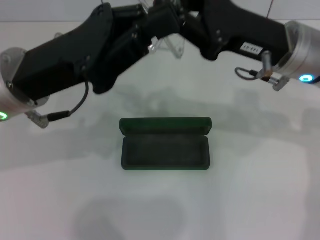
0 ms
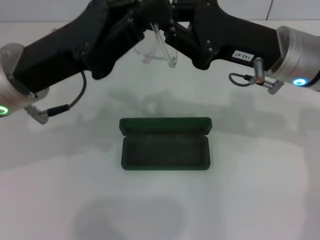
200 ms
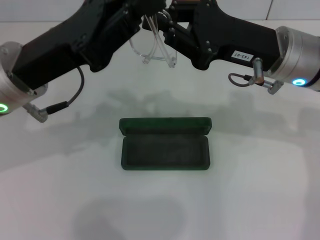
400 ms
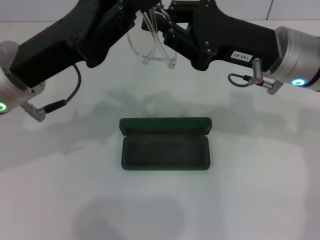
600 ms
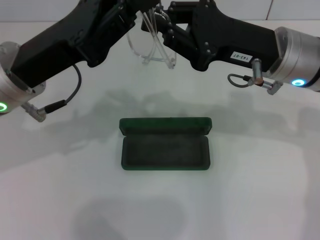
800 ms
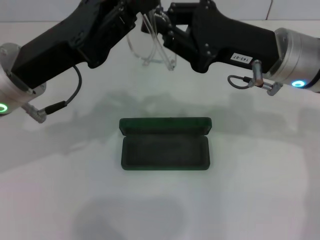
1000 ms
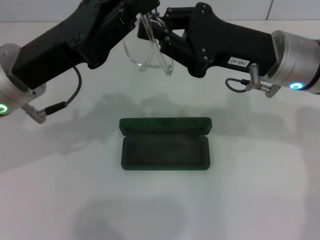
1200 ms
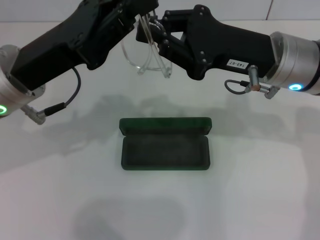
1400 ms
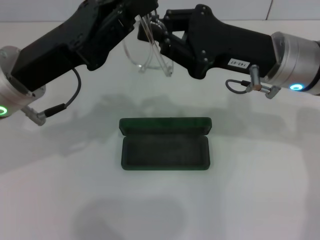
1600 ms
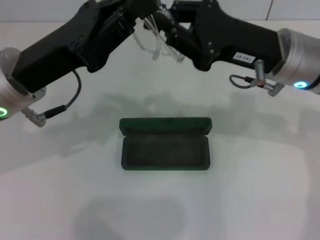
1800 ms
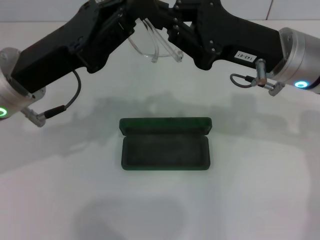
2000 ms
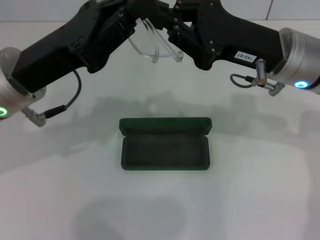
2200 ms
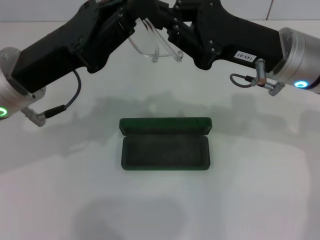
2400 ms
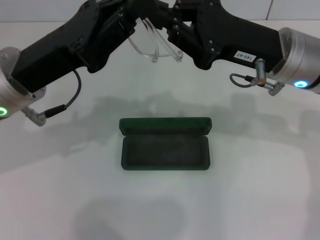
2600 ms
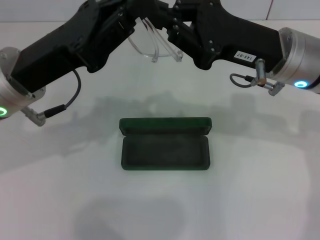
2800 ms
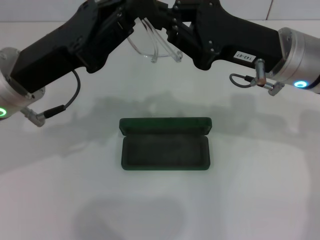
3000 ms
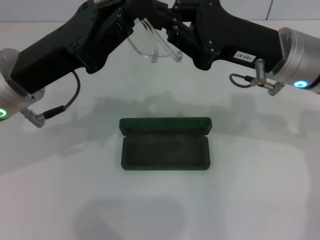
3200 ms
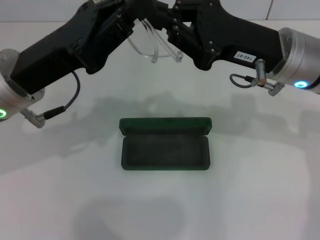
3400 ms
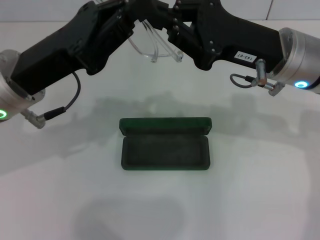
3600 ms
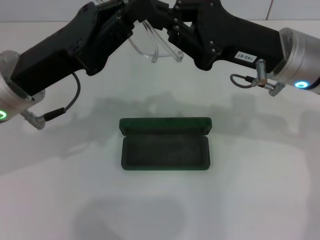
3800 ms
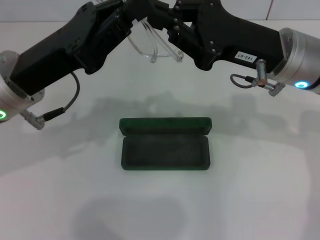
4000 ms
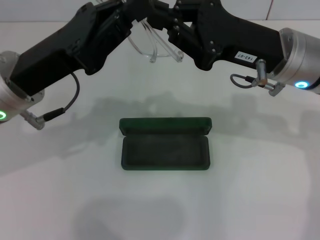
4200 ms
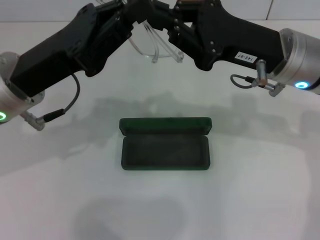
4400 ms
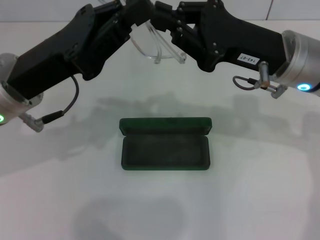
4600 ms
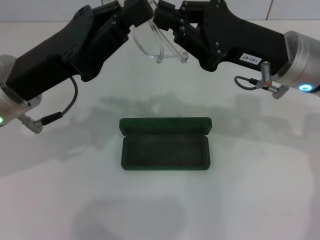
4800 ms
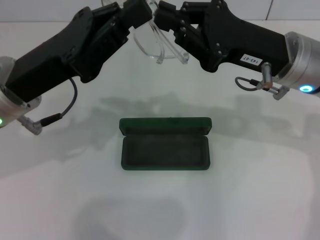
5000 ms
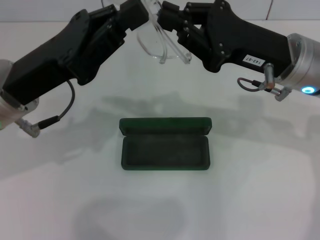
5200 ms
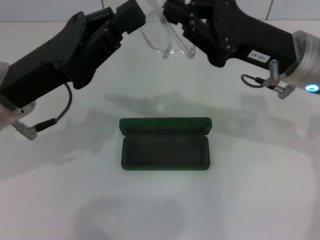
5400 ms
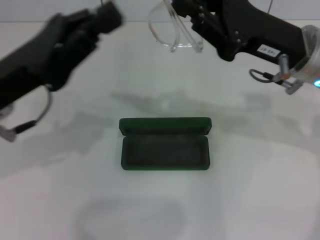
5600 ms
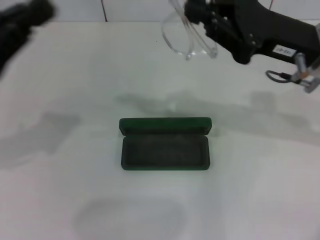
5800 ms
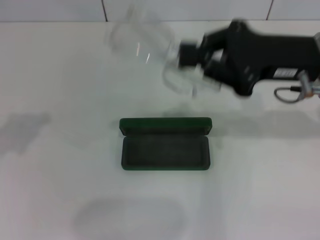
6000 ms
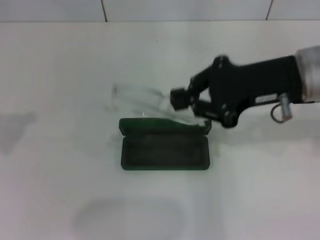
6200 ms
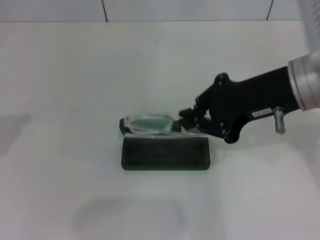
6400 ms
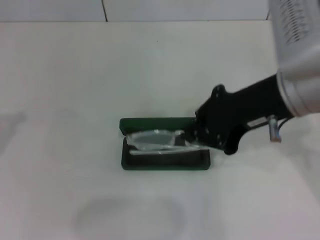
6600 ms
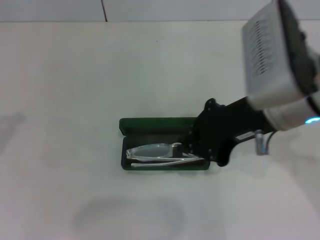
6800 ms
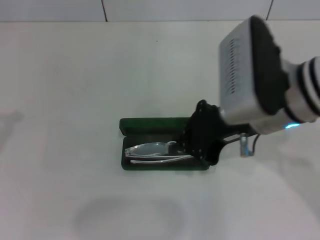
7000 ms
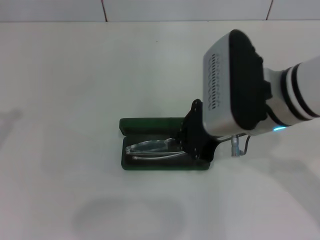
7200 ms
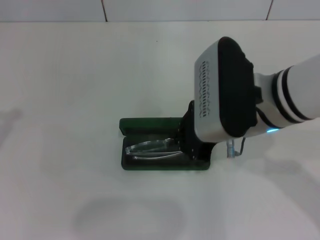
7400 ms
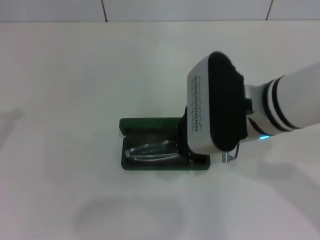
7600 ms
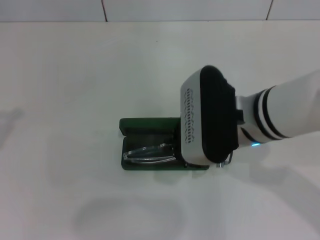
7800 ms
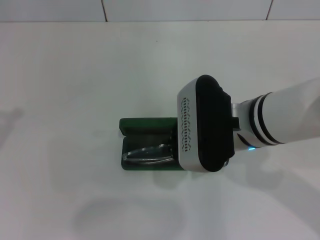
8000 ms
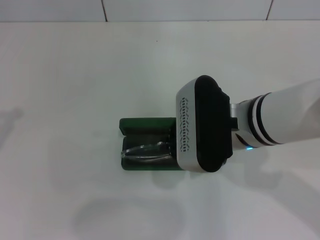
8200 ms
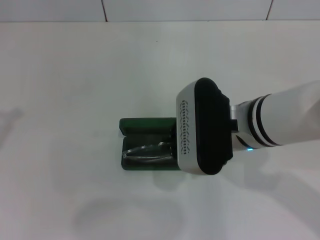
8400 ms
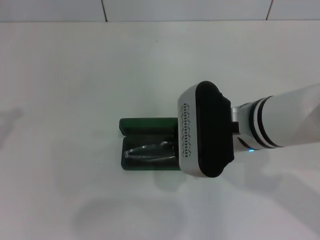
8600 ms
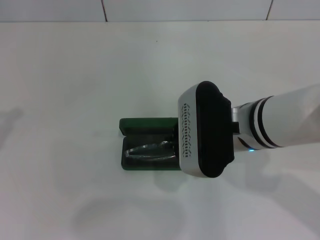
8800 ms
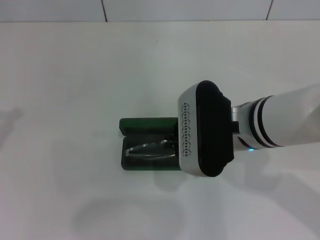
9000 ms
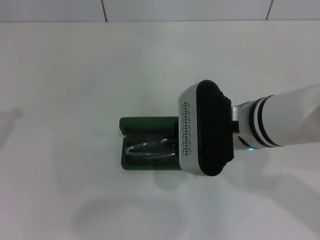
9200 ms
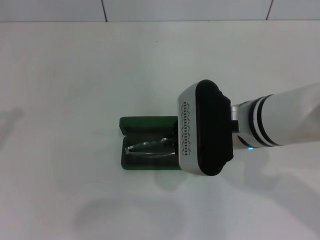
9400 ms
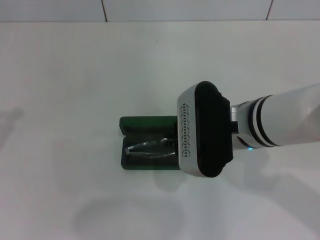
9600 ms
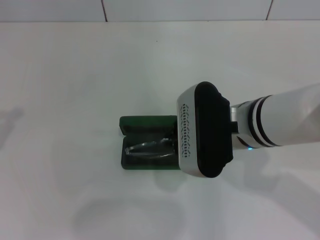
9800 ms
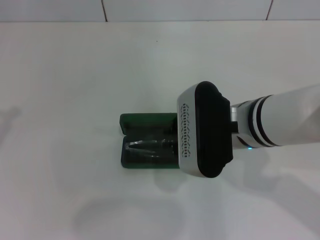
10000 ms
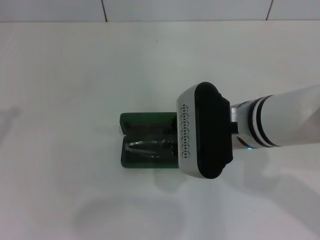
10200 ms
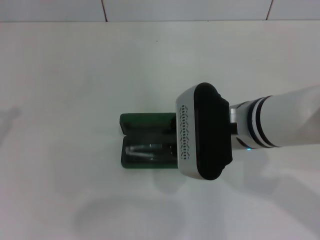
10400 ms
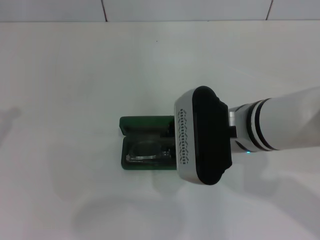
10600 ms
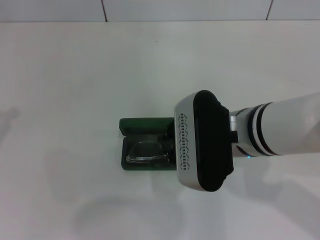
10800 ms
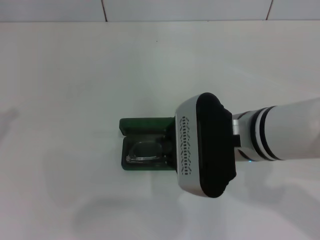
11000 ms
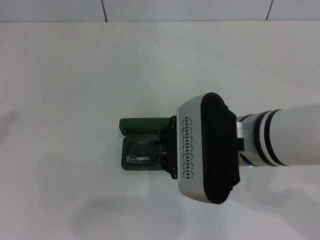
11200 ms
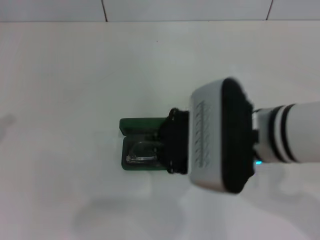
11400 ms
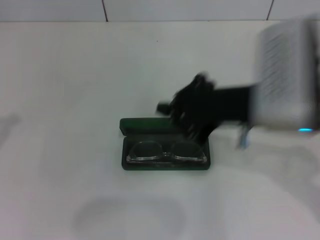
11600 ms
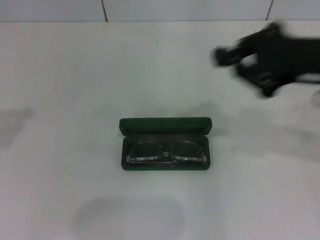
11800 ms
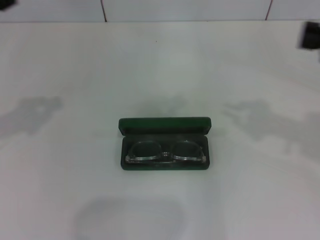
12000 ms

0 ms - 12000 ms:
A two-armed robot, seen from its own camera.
Step, 1800 ms - 11000 ms: Put the glasses into the case with your right hand.
0 ms - 1600 ms: The grippers stay close to where they were, moving slightly.
1600 ms - 4400 ms: Neither gripper changes place.
4400 ms - 6000 ms: The left gripper heads to the left, covering about 15 cm.
6000 ms - 7600 ms: The right gripper goes some 10 cm to the left.
7600 ms - 9000 ms: The grippers move only a little.
9000 ms - 10400 ms: Both grippers stay put.
10400 ms - 12000 ms: The left gripper travels forward by about 5 cm. Meanwhile the right gripper travels to the right by roughly 25 cm.

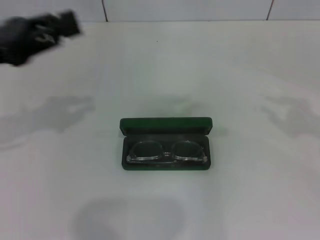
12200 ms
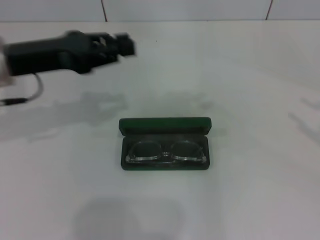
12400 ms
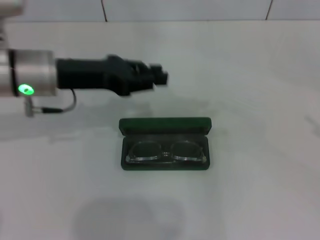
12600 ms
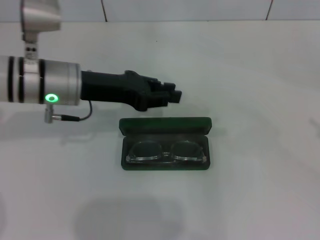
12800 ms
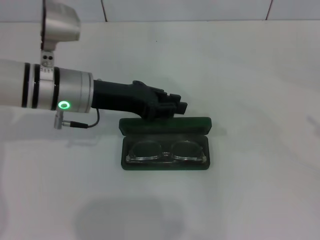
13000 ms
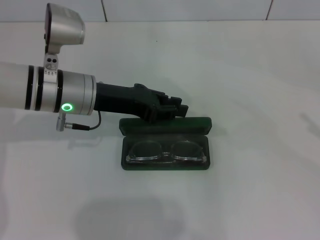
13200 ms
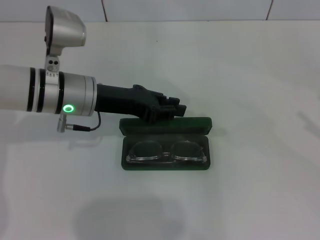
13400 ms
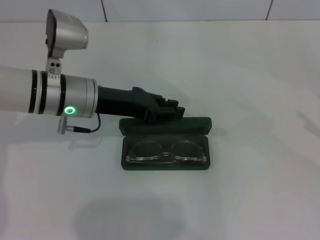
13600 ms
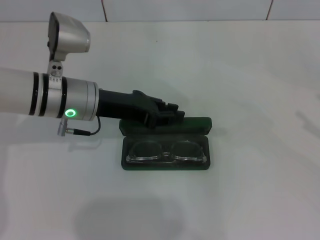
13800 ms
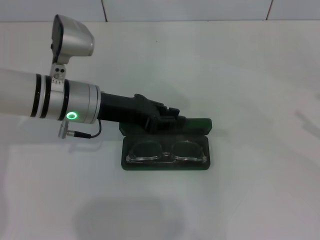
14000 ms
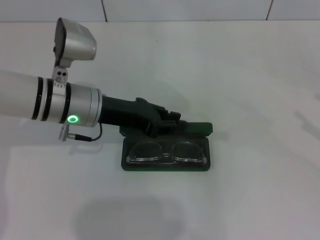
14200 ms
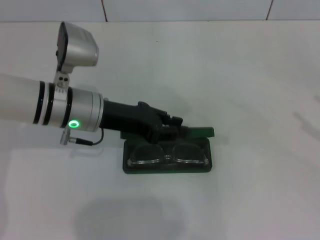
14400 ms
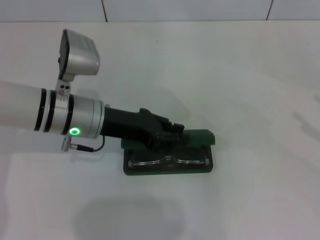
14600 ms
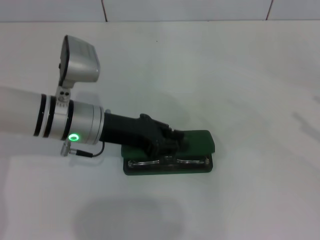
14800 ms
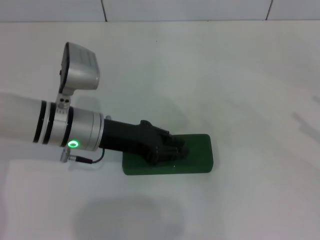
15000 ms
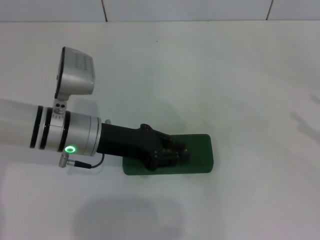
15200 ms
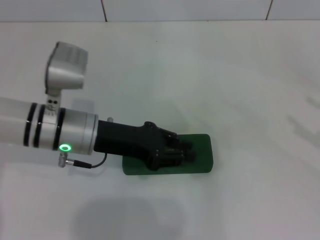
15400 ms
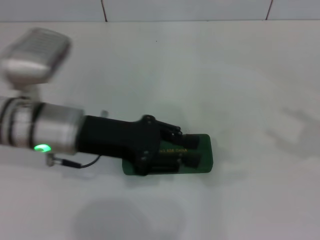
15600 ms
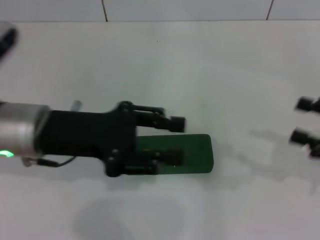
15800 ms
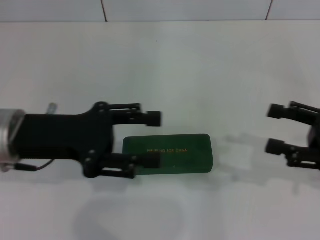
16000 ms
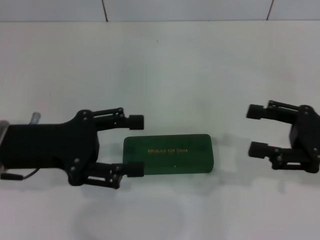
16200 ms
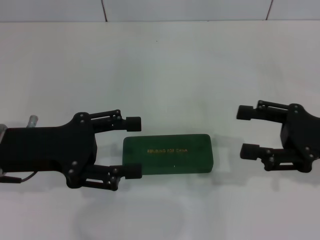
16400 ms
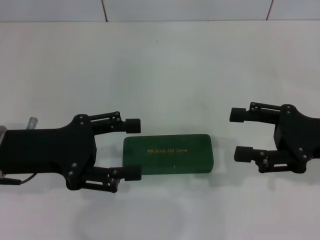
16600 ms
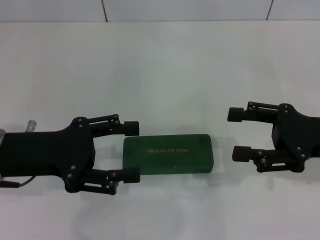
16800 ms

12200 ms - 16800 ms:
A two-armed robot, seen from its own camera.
Step, 12200 ms - 15000 ms: Close the glasses case with your left hand.
12200 ms - 13800 ms: The left gripper goes approximately 15 cm to the right and downward. Meanwhile the right gripper moves downward, some 5 cm, and opens up.
13800 ms - 15200 ms: The grippers make only small movements.
15200 ms - 16800 ms: The right gripper is displaced to the left by approximately 15 cm. The left gripper travels to the left, backward and upward by some 10 cm, and opens its fingers.

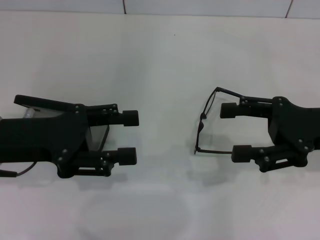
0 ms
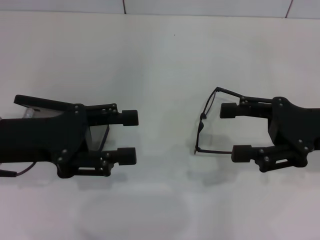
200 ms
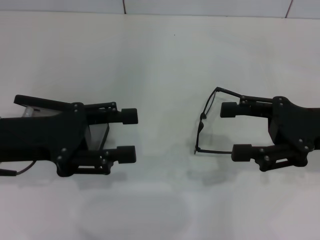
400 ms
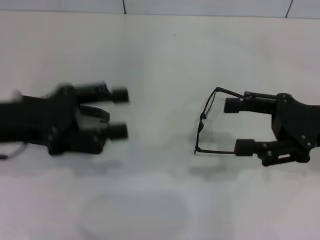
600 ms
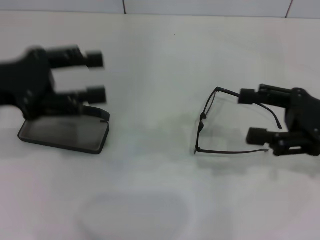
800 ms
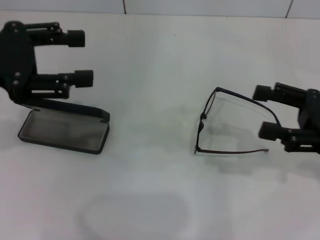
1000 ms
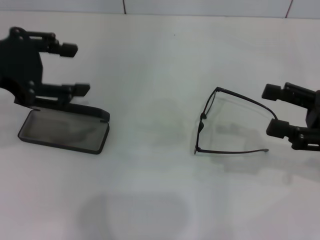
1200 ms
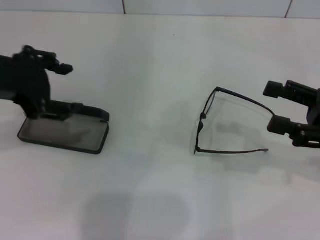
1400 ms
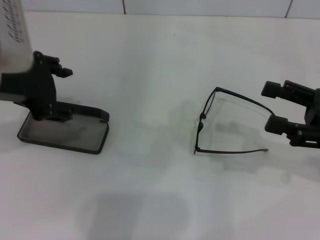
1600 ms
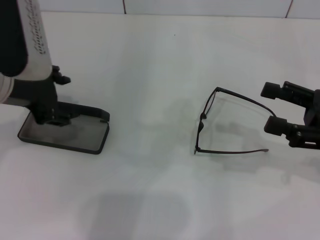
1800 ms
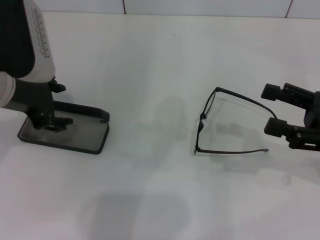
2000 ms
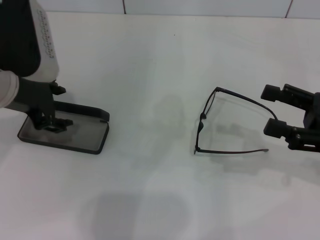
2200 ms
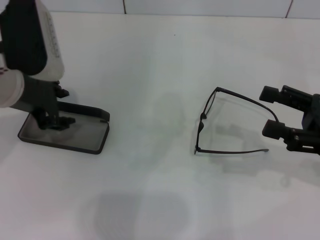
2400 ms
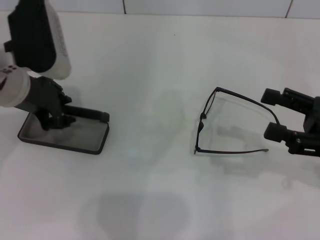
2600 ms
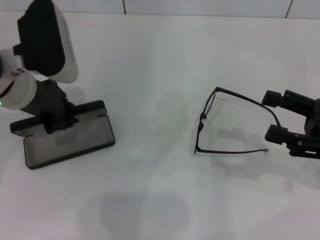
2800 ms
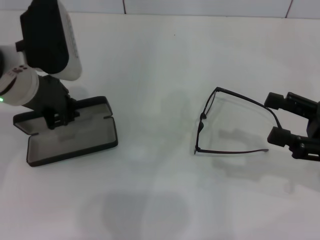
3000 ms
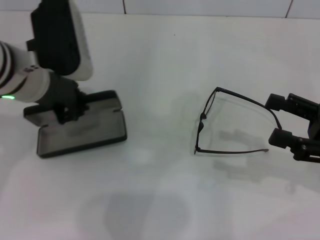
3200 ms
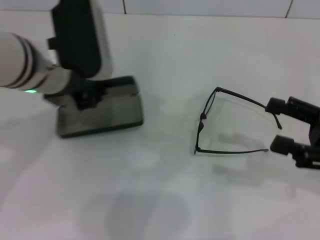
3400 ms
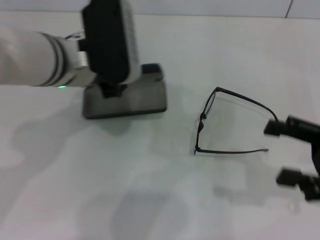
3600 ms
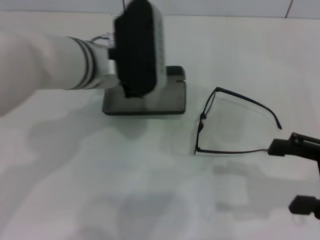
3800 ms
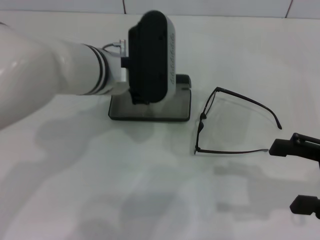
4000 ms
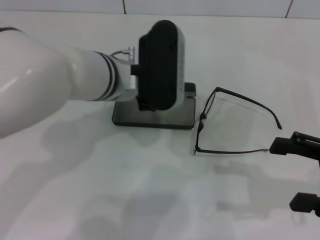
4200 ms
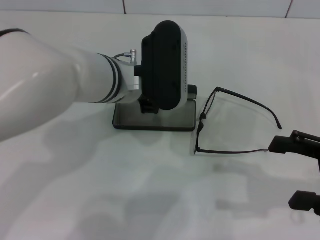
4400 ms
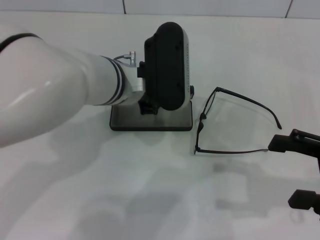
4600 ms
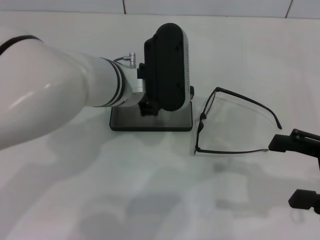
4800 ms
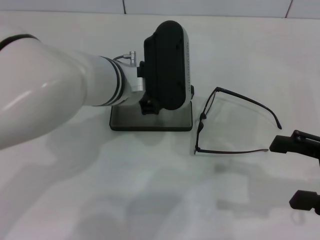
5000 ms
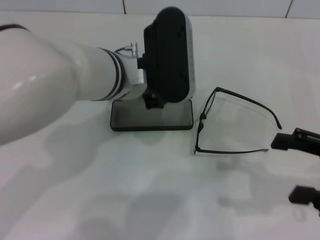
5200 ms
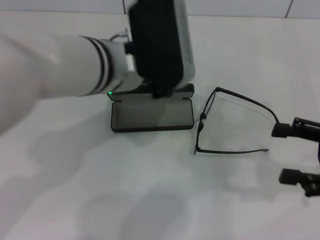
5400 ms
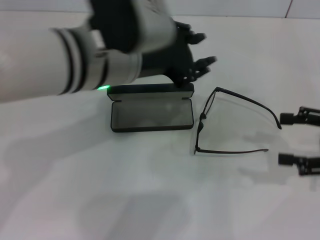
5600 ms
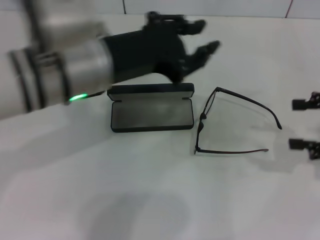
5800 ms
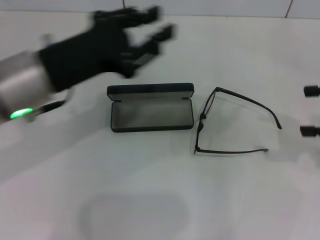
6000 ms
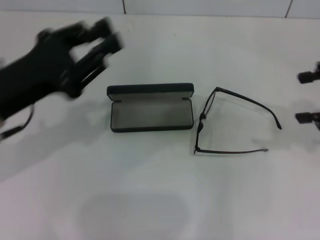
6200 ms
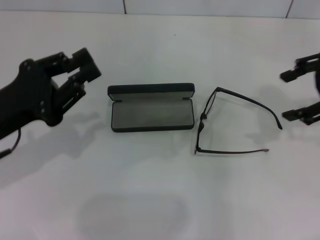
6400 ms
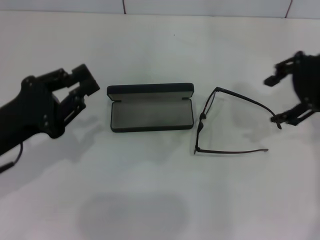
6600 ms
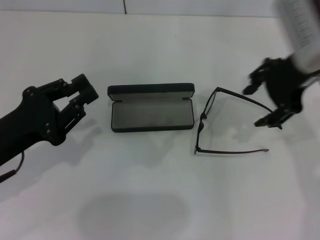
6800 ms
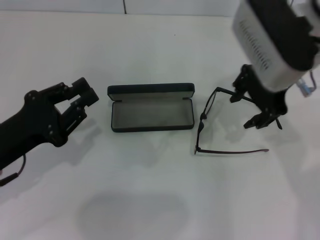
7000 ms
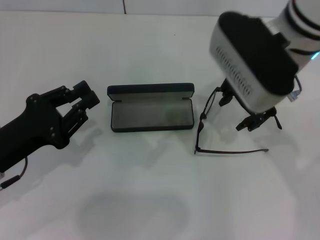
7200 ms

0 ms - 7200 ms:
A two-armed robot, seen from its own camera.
Step, 0 ms - 2800 ms: Grab the glasses case with your left hand.
Step, 3000 ms - 4600 ms: Place the glasses case in the center of the table with your left hand.
0 ms - 1400 ms: The right gripper moves some 5 cm. The left gripper heads upward, covering roughly 10 cm.
1400 ms - 2800 ms: The left gripper moves downward and forward, about 10 cm, and closes its fingers.
2800 ms - 4400 ms: The left gripper shifts about 15 cm to the right.
4400 ms - 5800 ms: The right gripper heads forward, covering some 5 cm. Meanwhile the left gripper travels upward and backward by some 10 cm.
5800 ms - 7200 ms: The left gripper travels to the left, downward and backward by approximately 20 cm; the right gripper goes some 25 cm to the left.
